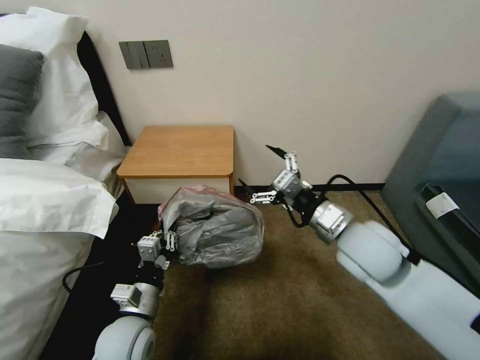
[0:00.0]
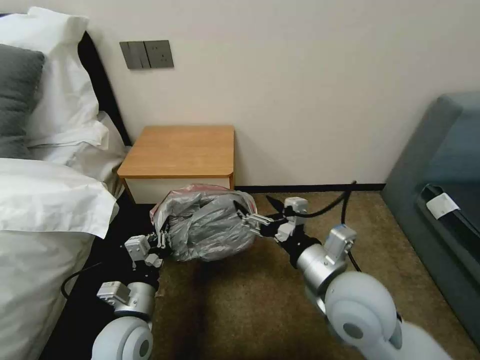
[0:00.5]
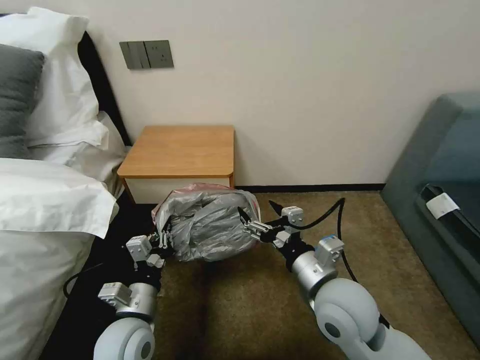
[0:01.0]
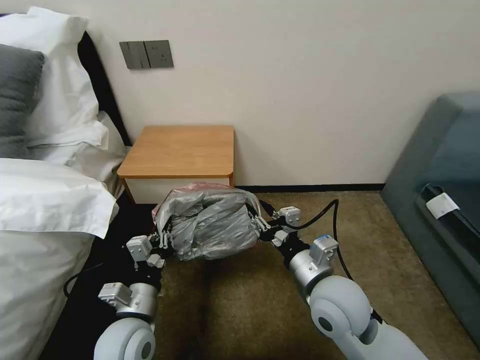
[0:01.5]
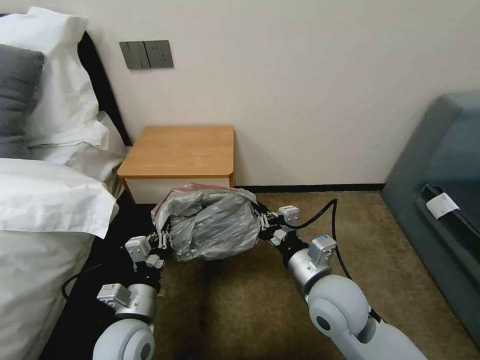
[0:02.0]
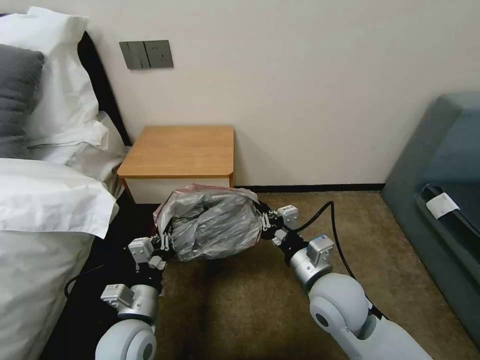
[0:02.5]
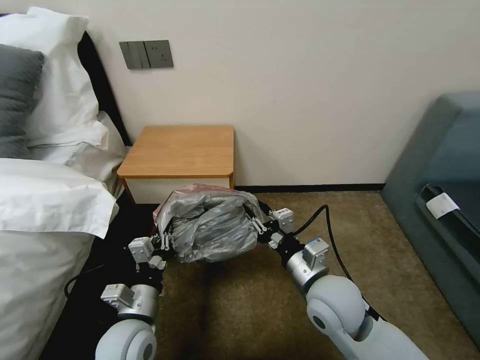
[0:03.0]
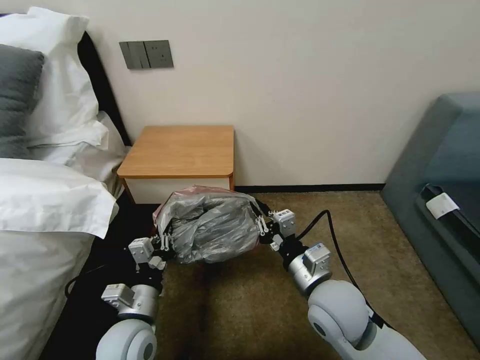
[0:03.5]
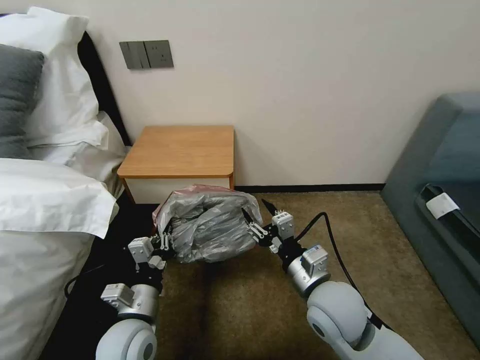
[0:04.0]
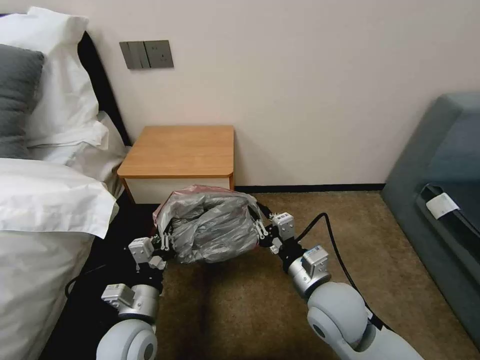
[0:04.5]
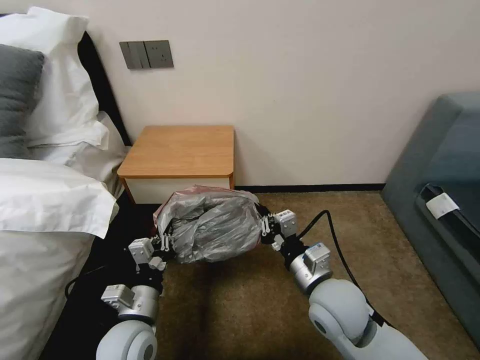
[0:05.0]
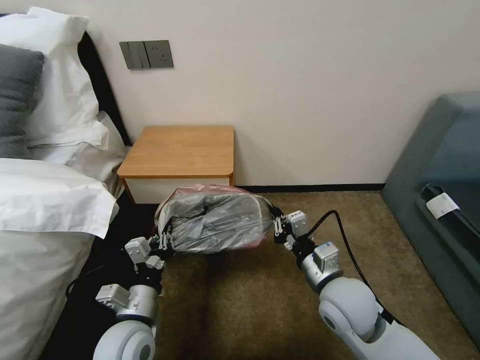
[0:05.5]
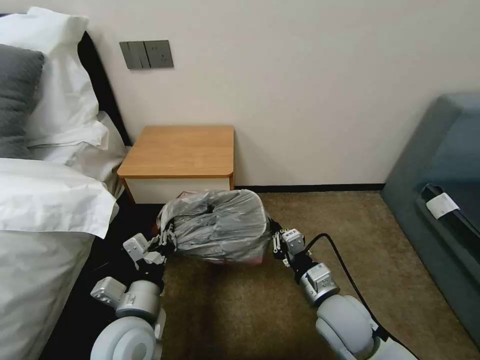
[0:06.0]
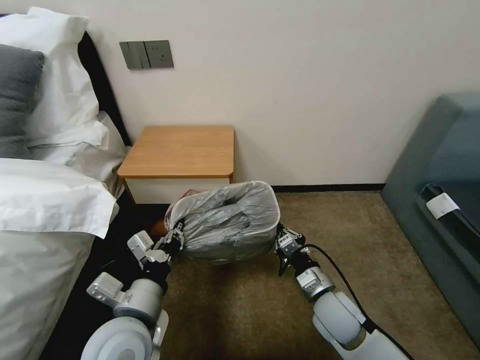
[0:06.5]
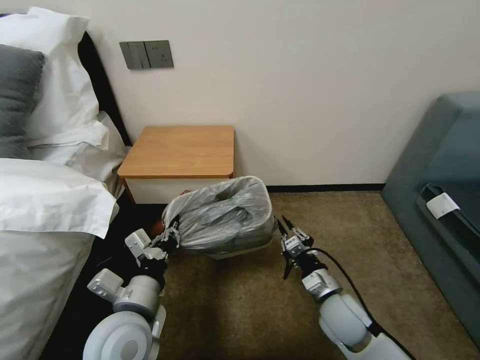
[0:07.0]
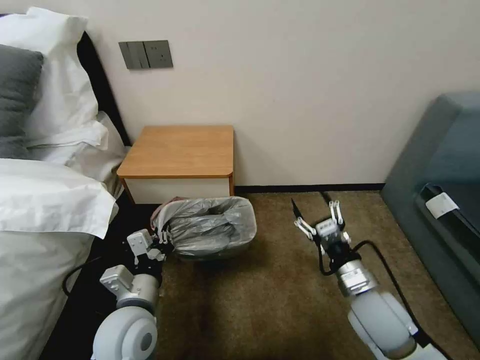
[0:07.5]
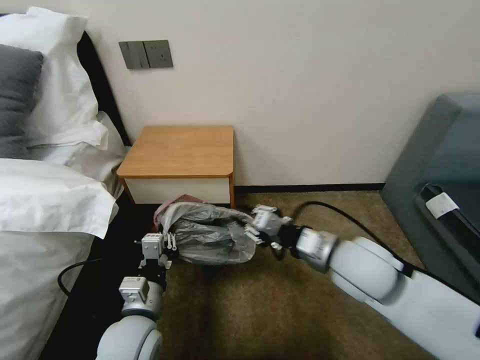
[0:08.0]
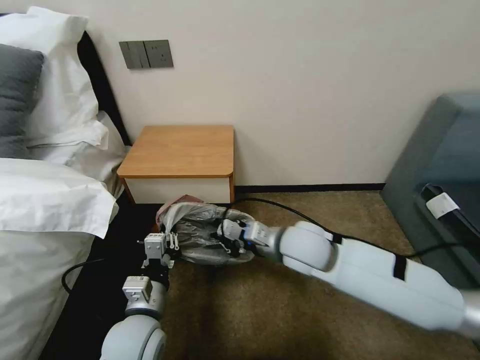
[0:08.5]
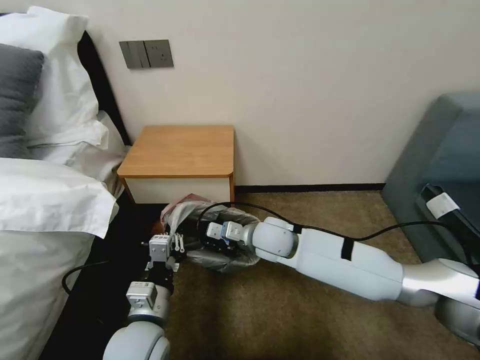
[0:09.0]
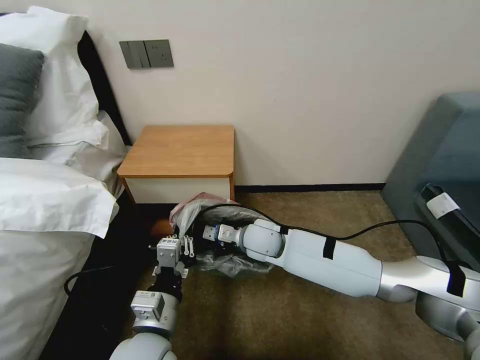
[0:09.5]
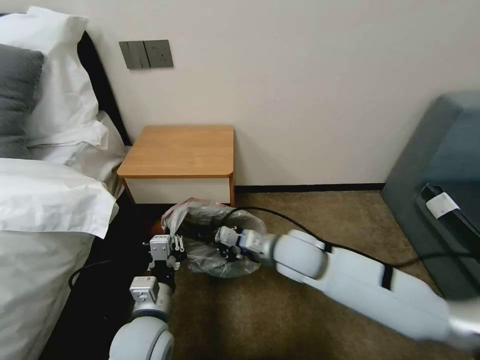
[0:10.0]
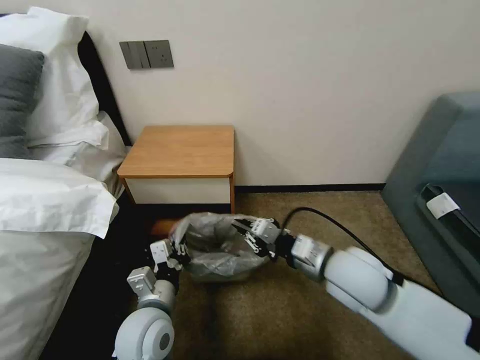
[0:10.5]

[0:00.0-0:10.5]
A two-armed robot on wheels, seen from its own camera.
Task of the whole recording: Pick up the garbage bag from the table and place it over the trash can.
0:00.0 to 0:02.0: The right gripper heads downward, backward and to the left, covering approximately 10 cm, and closes up.
0:02.0 to 0:04.0: The right gripper opens.
0:04.0 to 0:06.5: The right gripper heads downward, covering some 10 cm, and closes its fingers; the left gripper moves upward, some 10 cm.
0:06.5 to 0:08.5: The right gripper travels upward, forward and to the left by approximately 20 cm, and opens and closes again, while the left gripper goes about 5 cm downward.
0:08.5 to 0:10.5: The right gripper moves to the right and backward, approximately 10 cm.

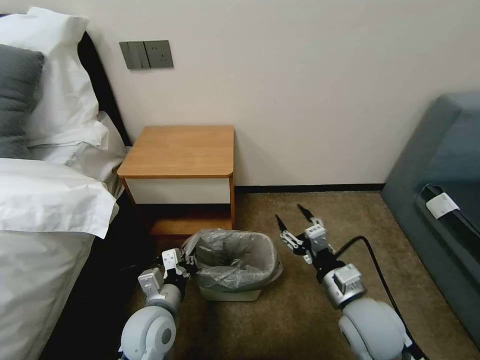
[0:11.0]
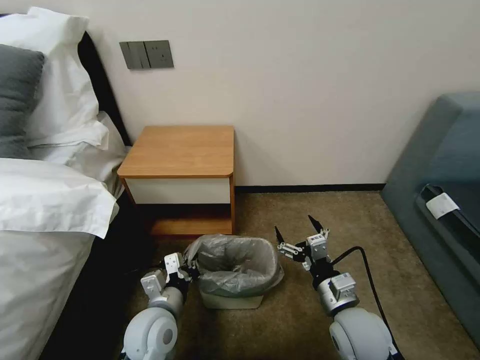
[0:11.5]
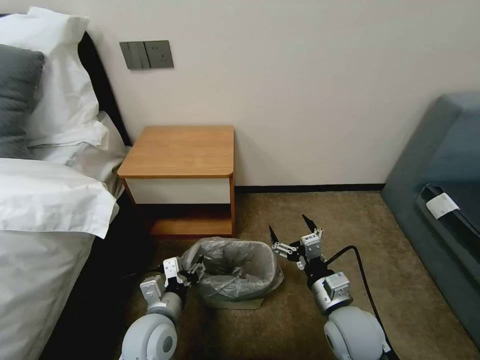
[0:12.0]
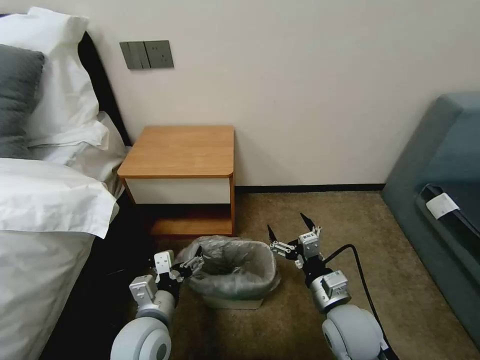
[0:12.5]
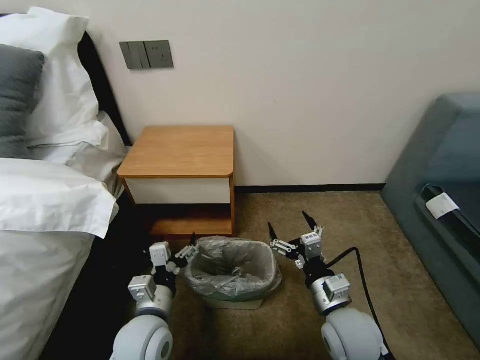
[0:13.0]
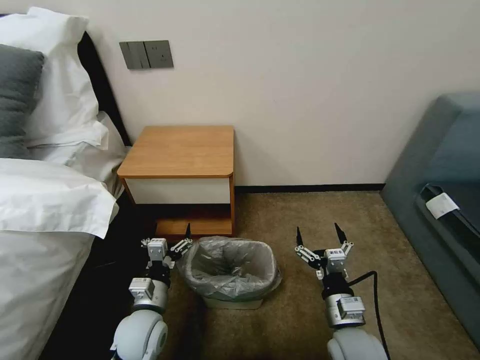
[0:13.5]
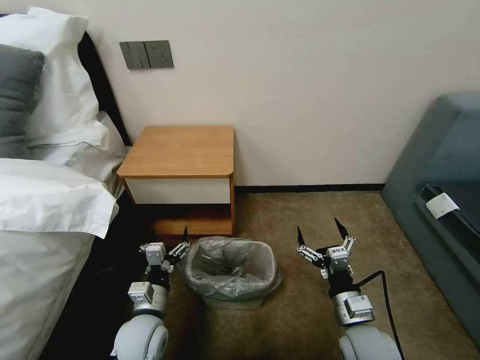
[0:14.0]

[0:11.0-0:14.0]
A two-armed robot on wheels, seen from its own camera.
Task of the whole recording: Pick up the garbage bag from the table and place it over the trash can.
0:11.0 to 0:12.5: The left gripper opens.
0:12.5 to 0:14.0: The left gripper is displaced downward by some 5 cm; the right gripper shifts by roughly 5 cm.

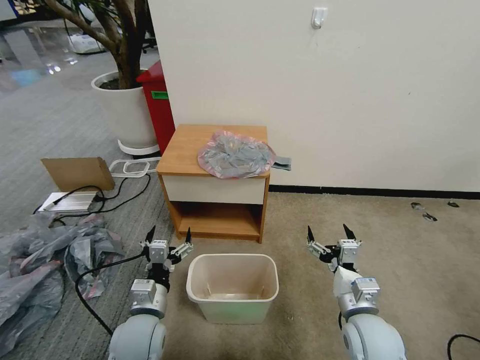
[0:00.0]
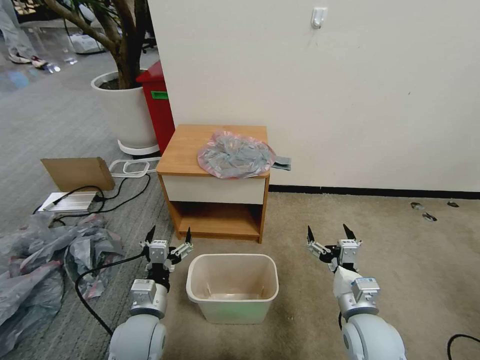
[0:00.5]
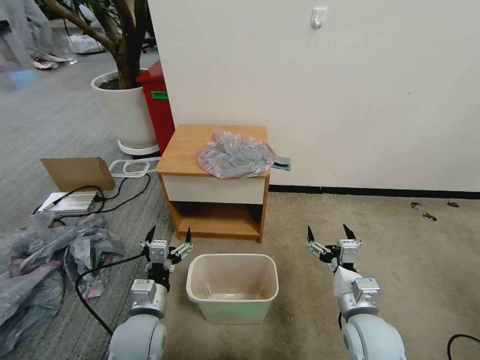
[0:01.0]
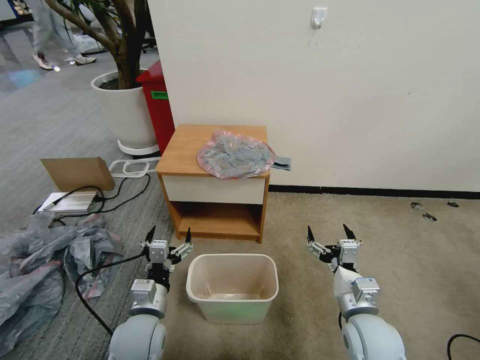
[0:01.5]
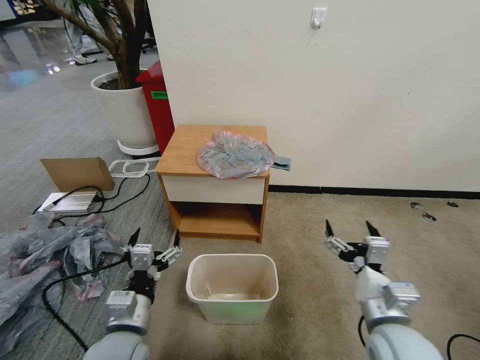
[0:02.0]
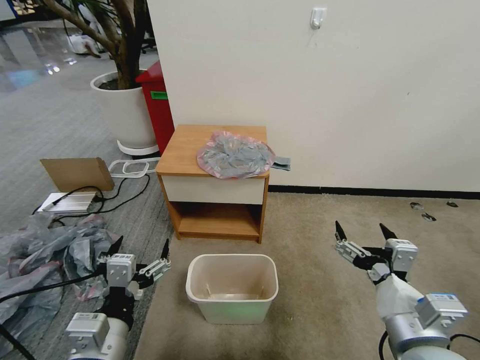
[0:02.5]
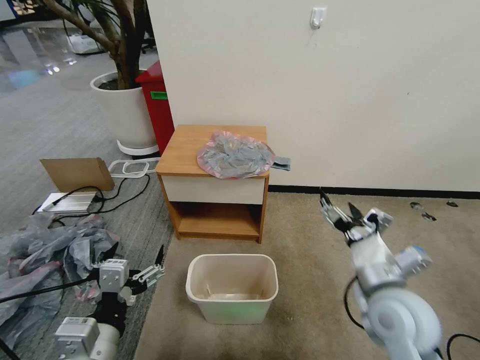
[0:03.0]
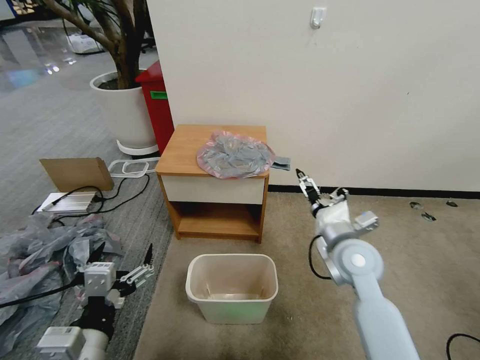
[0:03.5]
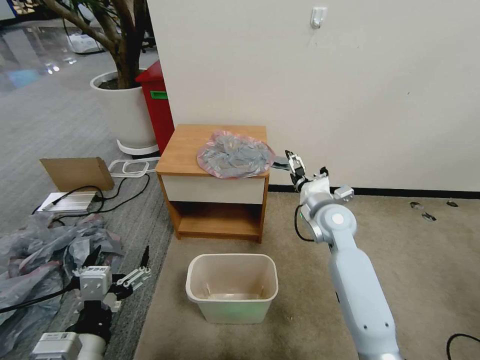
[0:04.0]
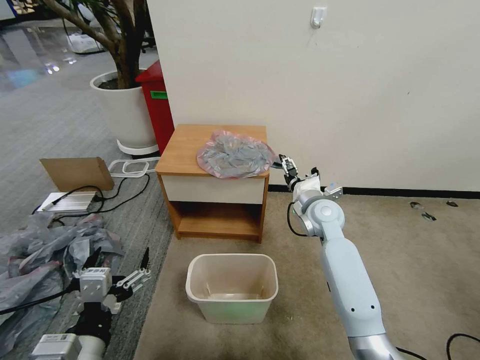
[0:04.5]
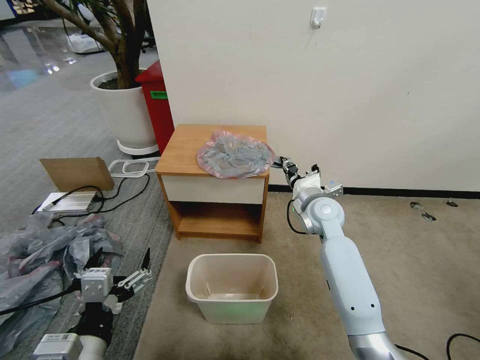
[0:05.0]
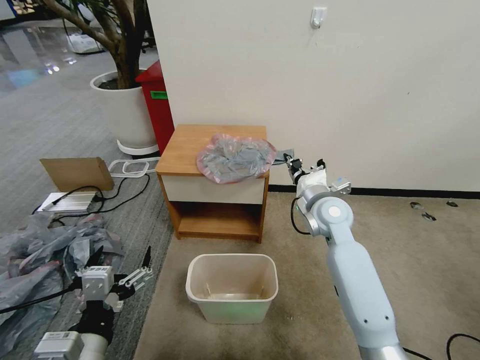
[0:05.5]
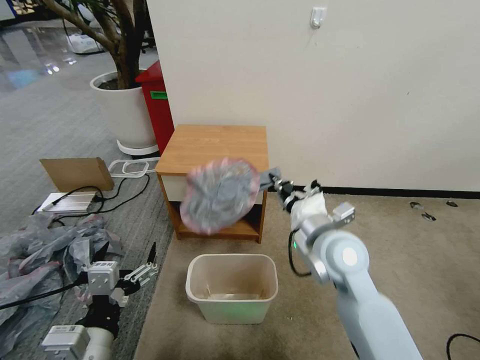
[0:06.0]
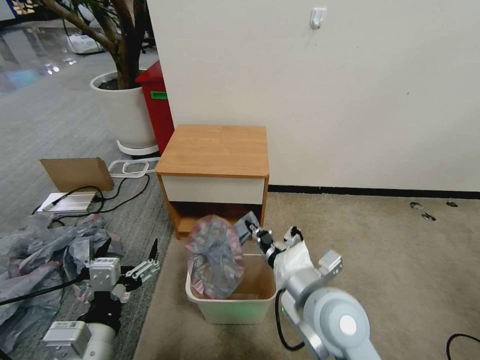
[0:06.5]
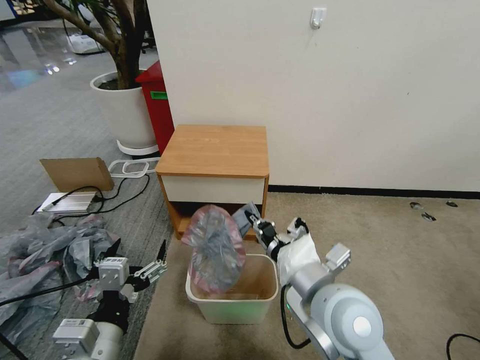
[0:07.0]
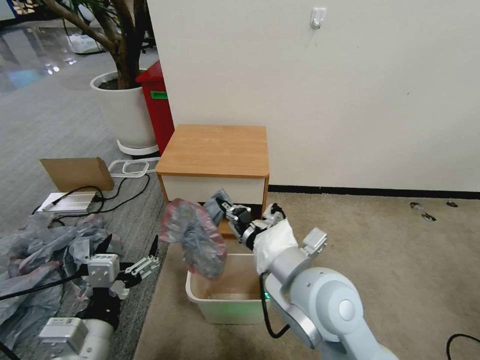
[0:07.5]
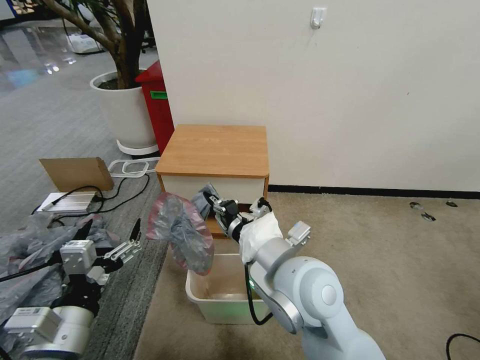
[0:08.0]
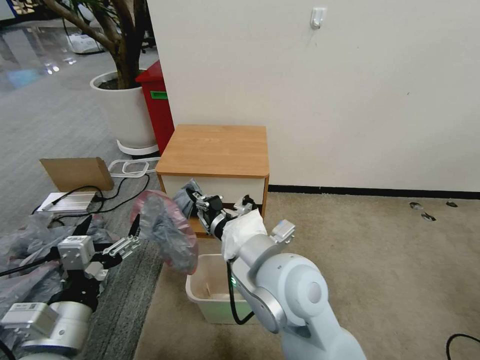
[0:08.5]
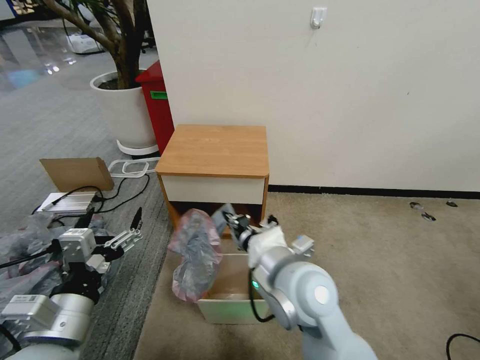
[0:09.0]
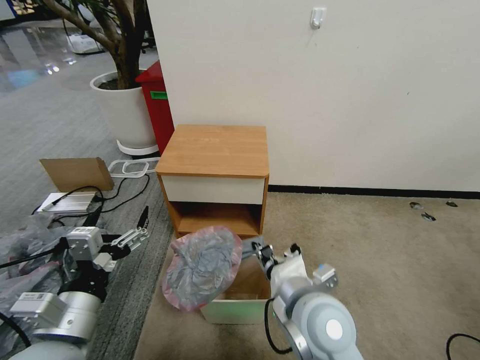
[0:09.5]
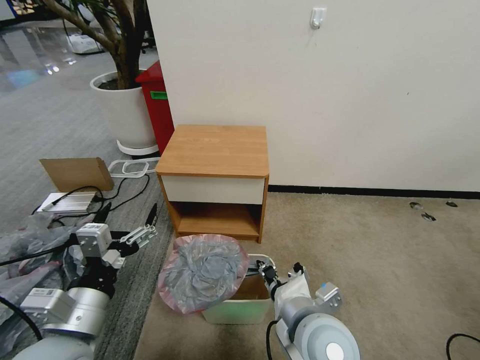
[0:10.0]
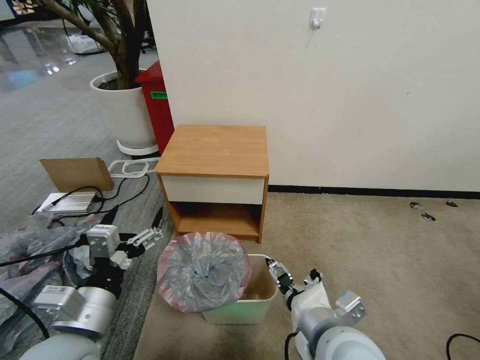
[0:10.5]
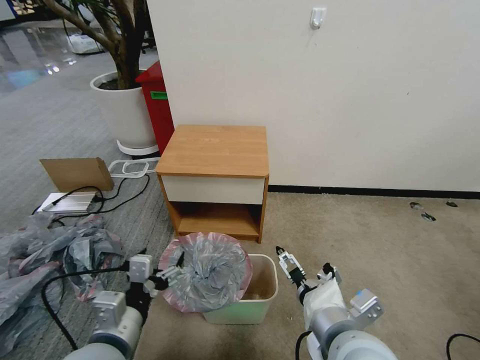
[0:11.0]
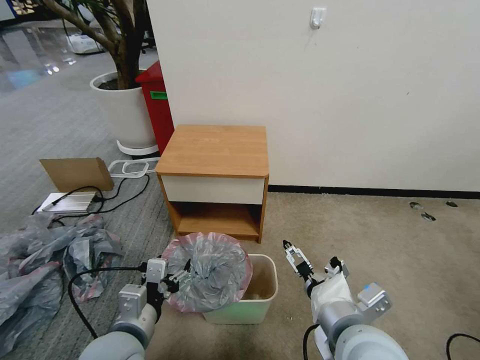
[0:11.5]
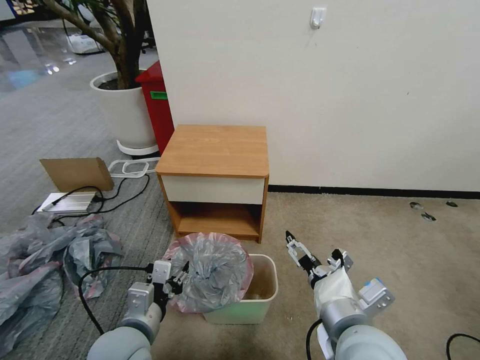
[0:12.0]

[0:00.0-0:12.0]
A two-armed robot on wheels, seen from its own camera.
Task of the whole recording: Pick up the garbage bag from the table and place it over the trash can.
0:02.0 to 0:04.0: The right gripper heads forward, covering some 25 cm. Meanwhile the left gripper travels backward and upward by about 10 cm.
0:04.0 to 0:06.0: The right gripper travels backward and upward by about 15 cm, and closes up.
0:06.0 to 0:08.0: The right gripper moves to the left and backward, approximately 10 cm.
0:08.0 to 0:10.0: The right gripper goes roughly 10 cm downward and backward.
0:10.0 to 0:12.0: The right gripper shifts approximately 5 cm to the right, and opens its fingers, while the left gripper heads downward, covering approximately 10 cm, and closes up.
